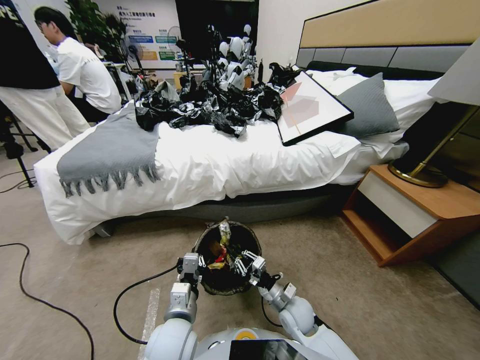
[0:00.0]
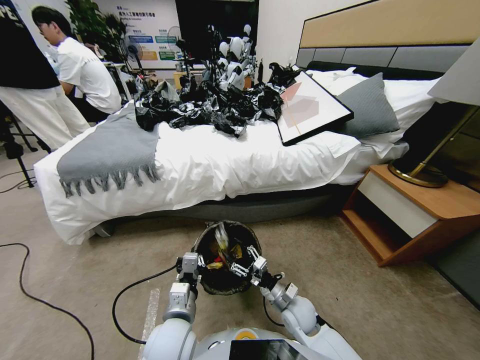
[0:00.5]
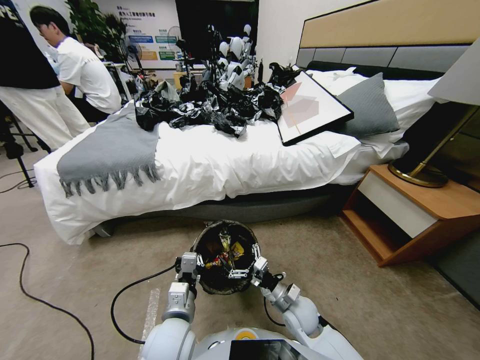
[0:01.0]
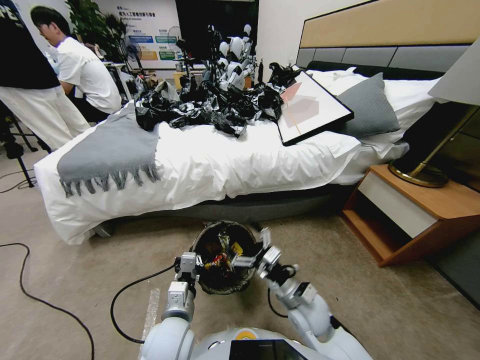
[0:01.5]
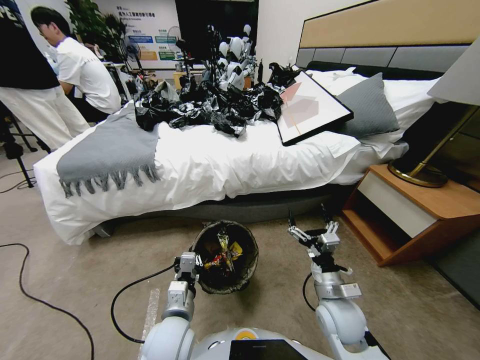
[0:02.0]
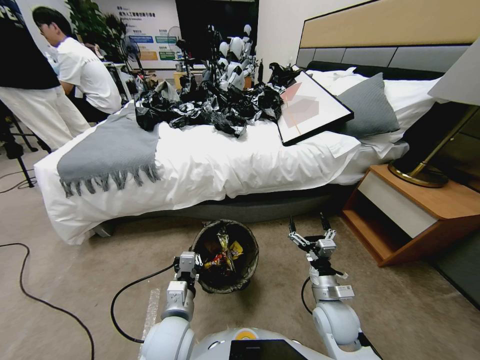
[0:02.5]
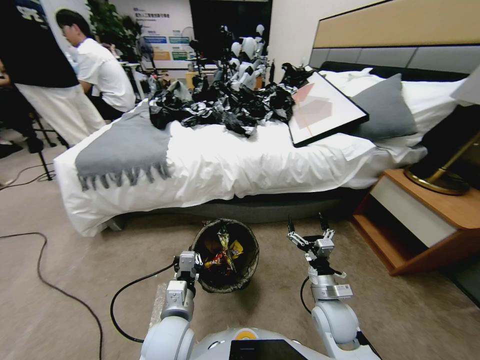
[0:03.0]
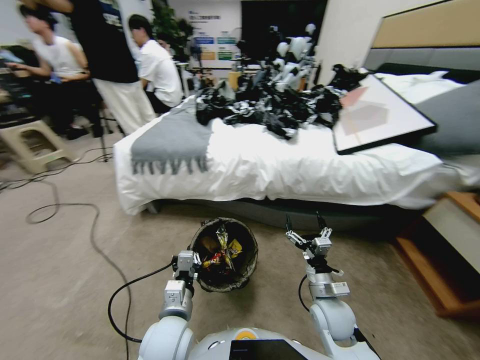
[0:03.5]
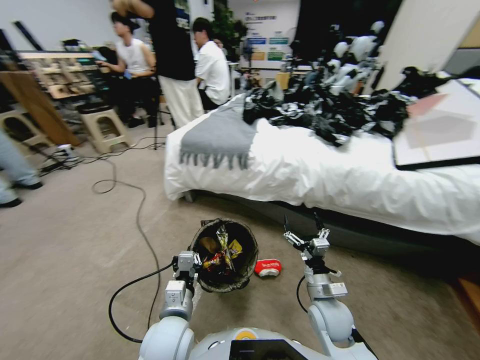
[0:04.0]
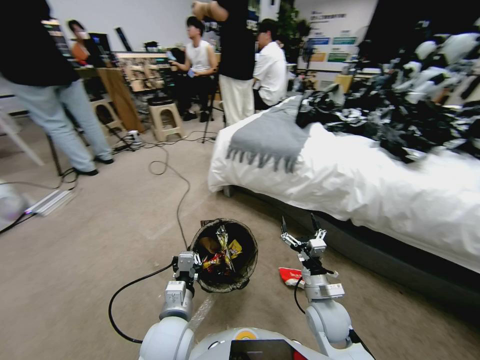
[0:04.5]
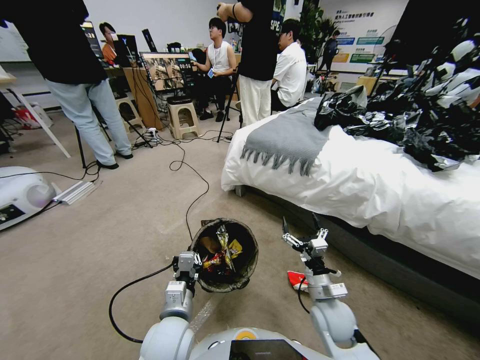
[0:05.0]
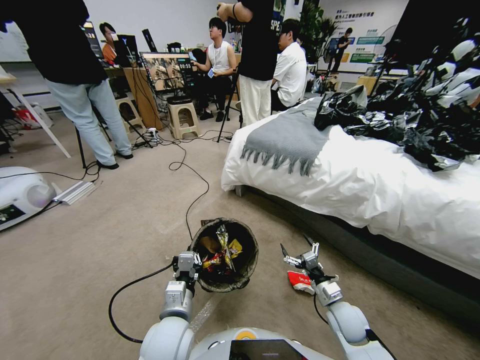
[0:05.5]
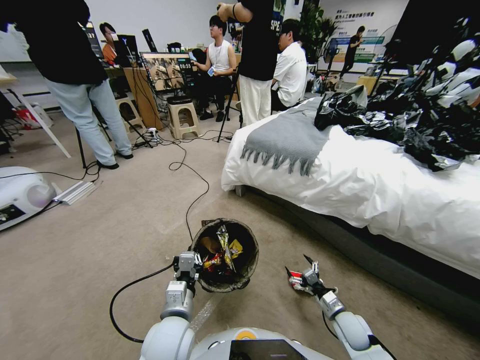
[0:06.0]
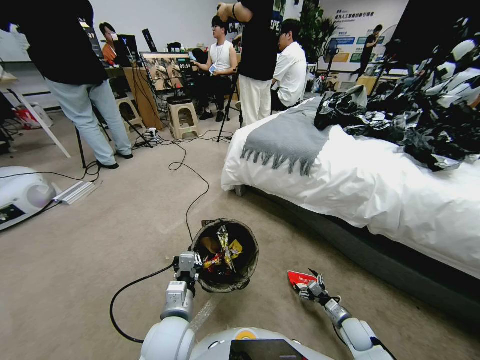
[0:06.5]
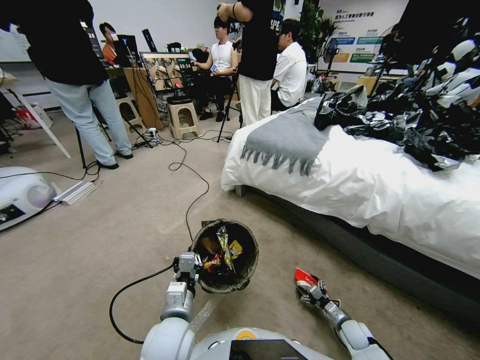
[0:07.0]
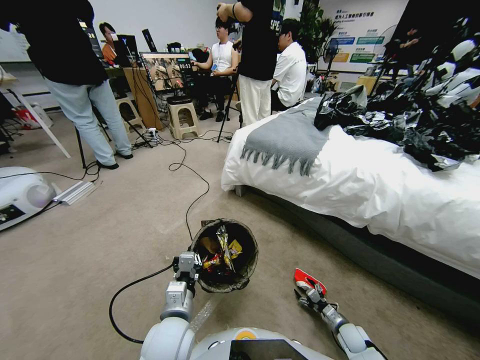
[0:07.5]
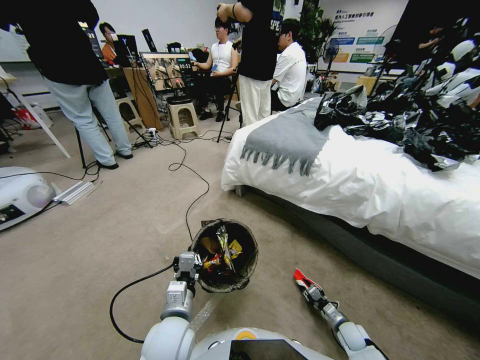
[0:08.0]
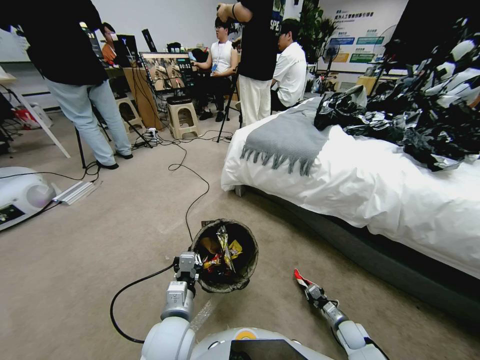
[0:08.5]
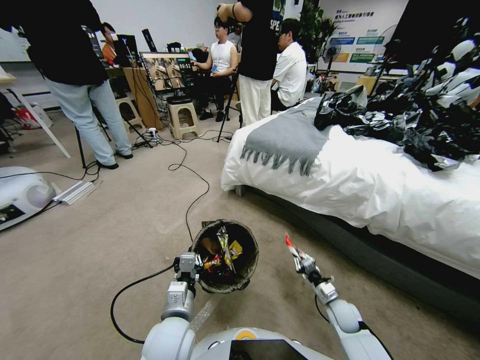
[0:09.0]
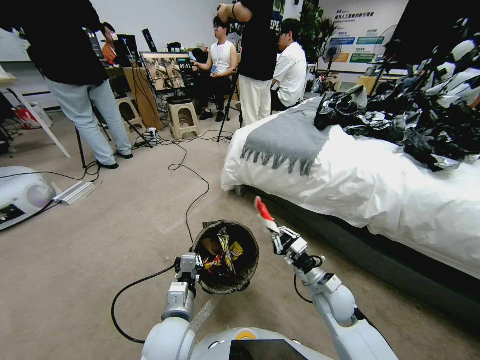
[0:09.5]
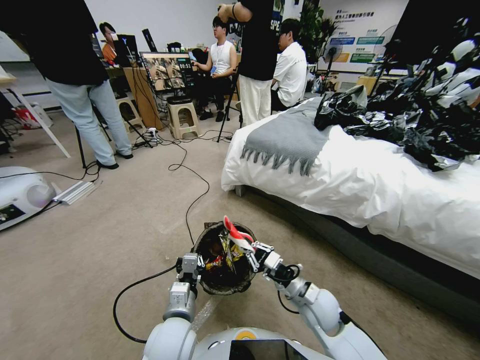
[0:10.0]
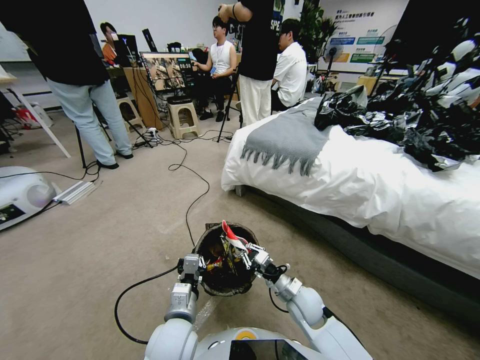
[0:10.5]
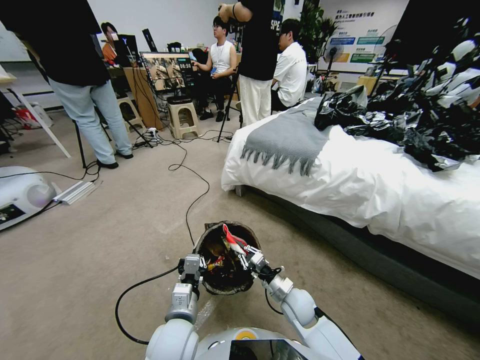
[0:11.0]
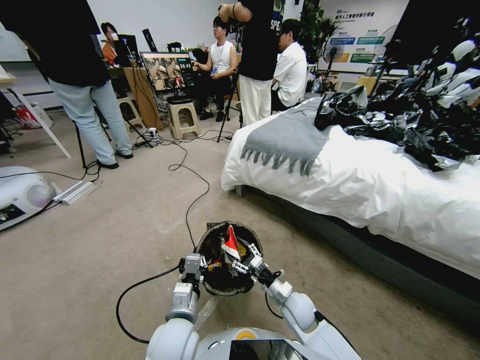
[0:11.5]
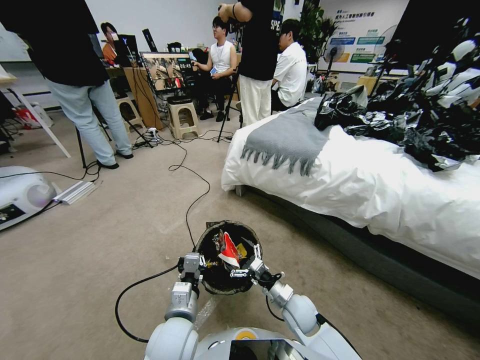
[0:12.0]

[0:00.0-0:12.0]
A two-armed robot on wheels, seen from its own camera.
Task of the whole recording: Pick up the trash bin, then pick up the garbage from the floor and place it into the trash bin.
0:00.0 to 0:02.0: The right gripper is displaced upward and to the right by some 10 cm, and opens its fingers.
0:04.0 to 0:06.0: The right gripper heads downward and to the right, covering approximately 20 cm.
0:06.0 to 0:08.0: The right gripper moves downward, about 10 cm, and closes.
0:08.0 to 0:10.0: The right gripper moves upward and to the left, about 30 cm.
0:10.0 to 0:12.0: The right gripper shifts roughly 5 cm downward, and opens up.

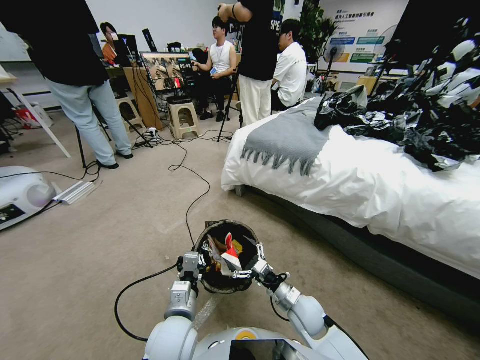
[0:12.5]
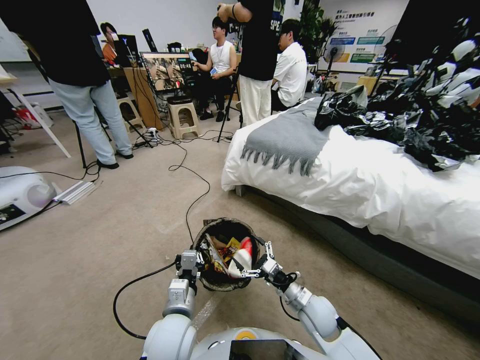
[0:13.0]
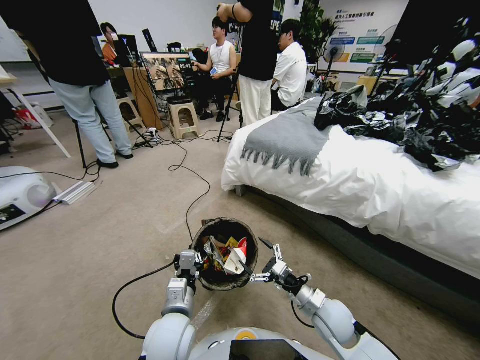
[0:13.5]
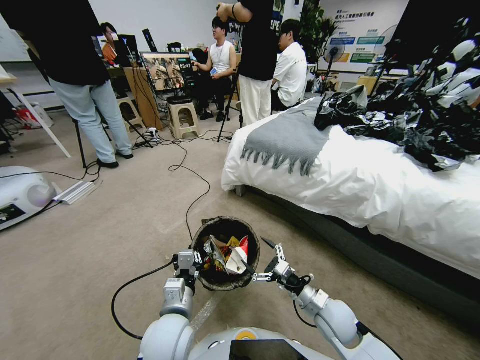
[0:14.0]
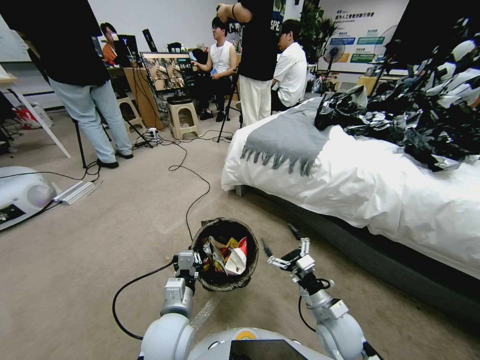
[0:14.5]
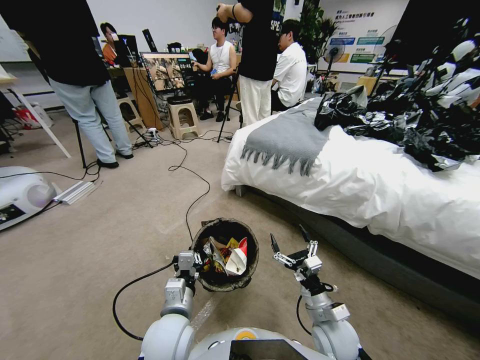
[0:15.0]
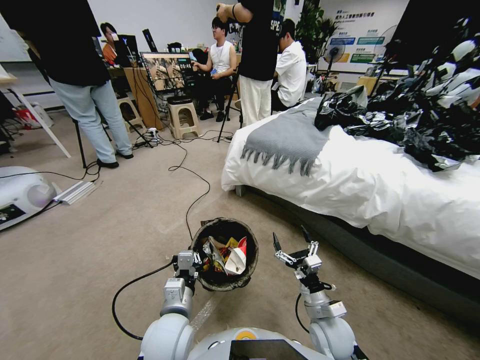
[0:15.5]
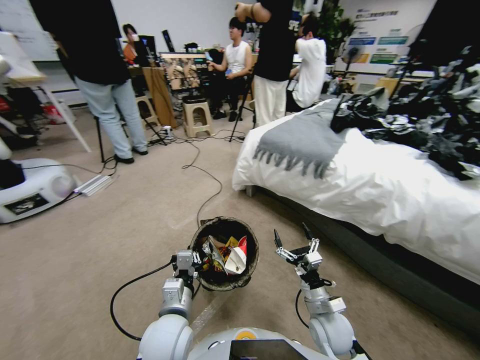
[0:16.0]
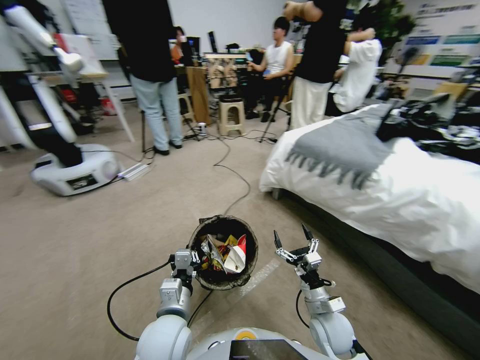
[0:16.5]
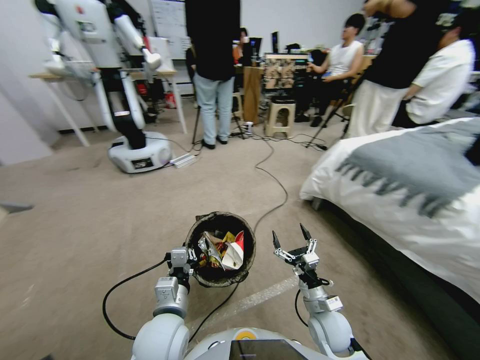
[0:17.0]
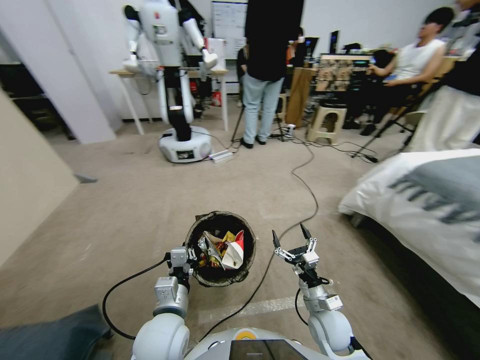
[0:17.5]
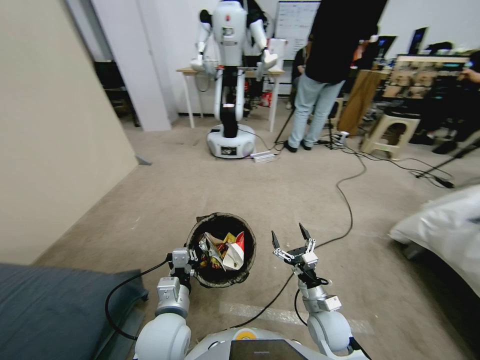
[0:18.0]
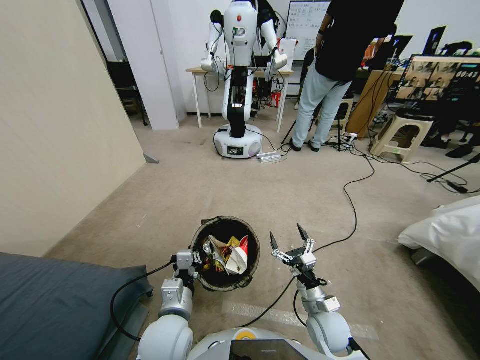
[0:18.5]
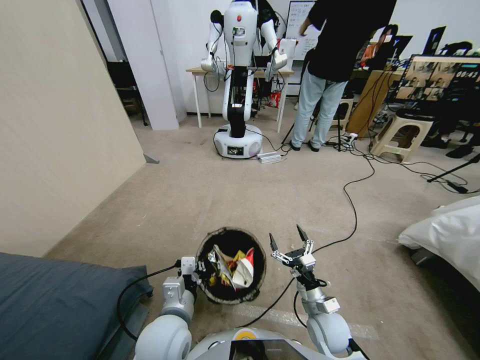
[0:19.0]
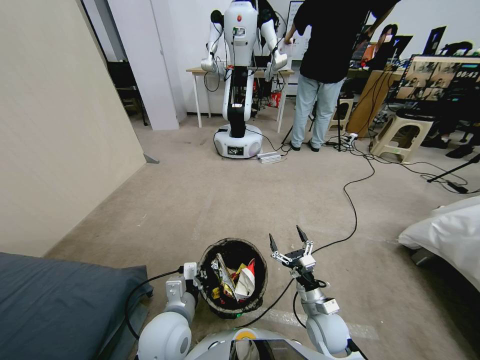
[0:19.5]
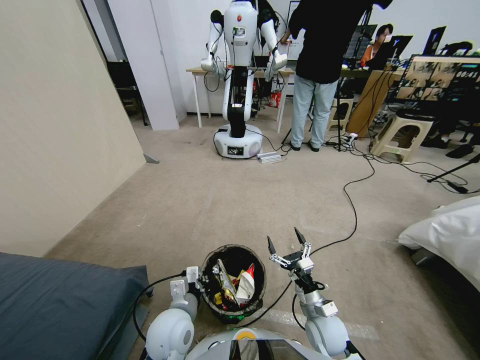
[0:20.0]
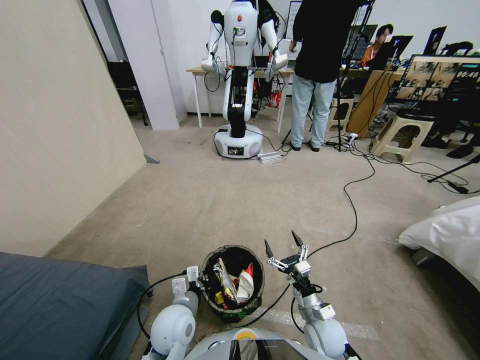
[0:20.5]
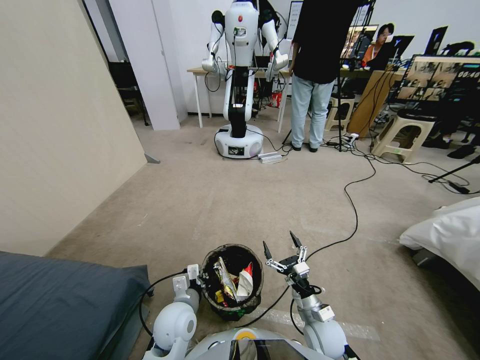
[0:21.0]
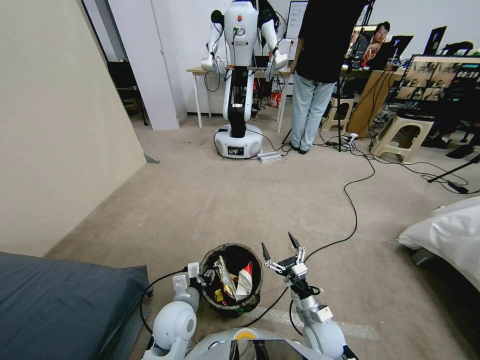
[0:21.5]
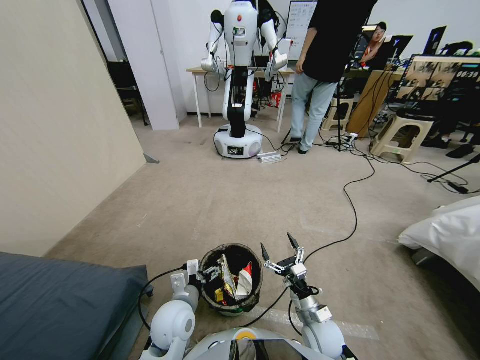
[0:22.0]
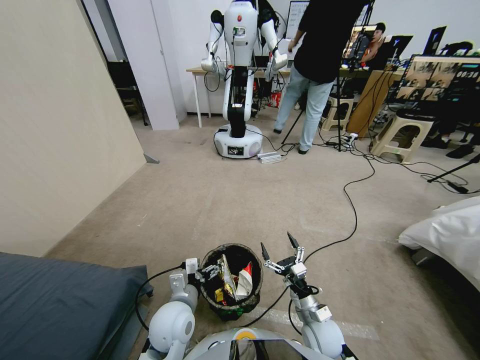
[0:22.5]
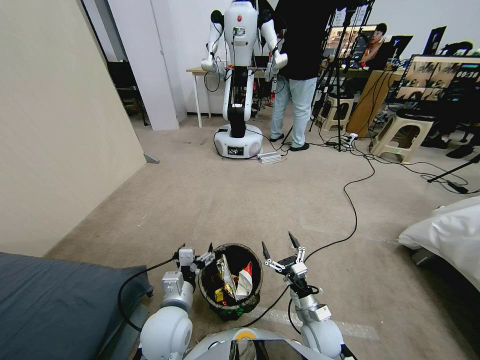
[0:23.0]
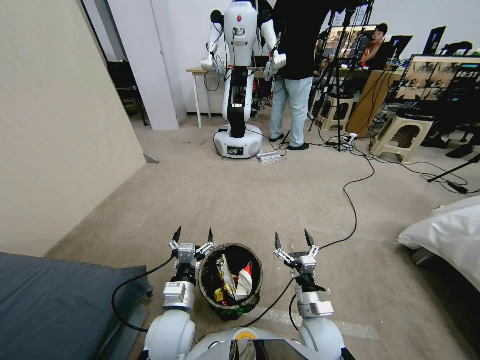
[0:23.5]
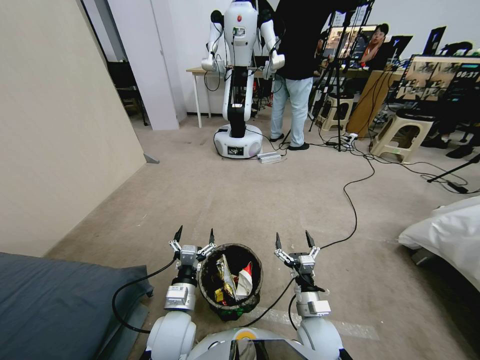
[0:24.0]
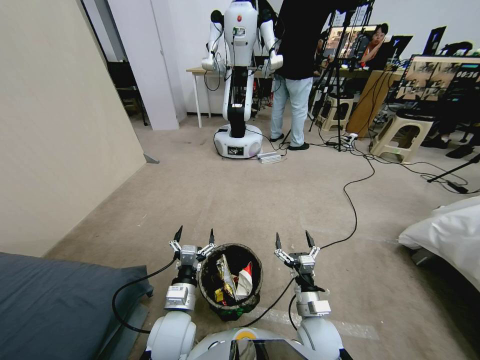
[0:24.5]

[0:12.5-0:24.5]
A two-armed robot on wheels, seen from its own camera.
Task of the whole recording: Pick up the trash bin, then pick up the garbage from the floor and place it into the trash bin.
0:12.5 to 0:14.5: The right gripper goes some 5 cm backward.
0:18.5 to 0:20.5: The left gripper shifts about 5 cm downward.
0:20.5 to 0:22.5: The left gripper opens up.

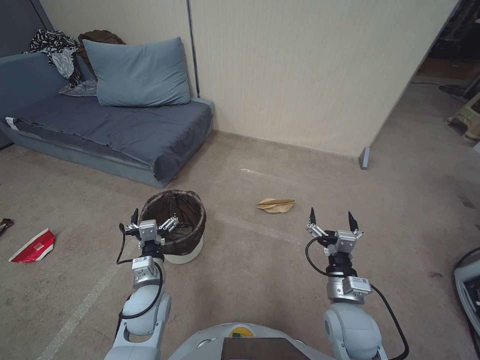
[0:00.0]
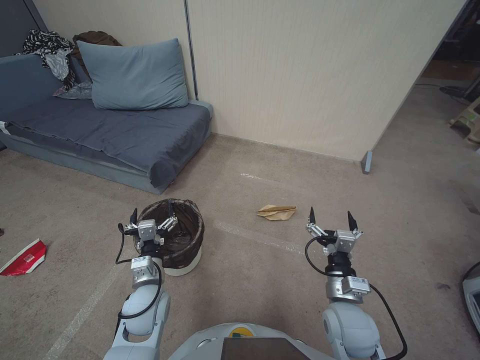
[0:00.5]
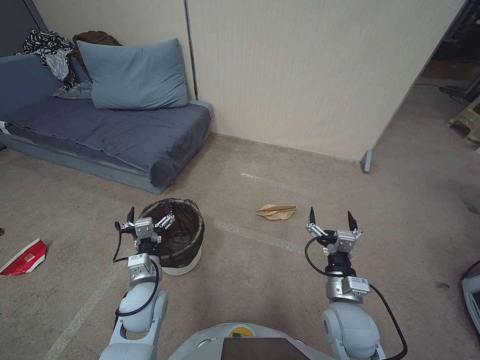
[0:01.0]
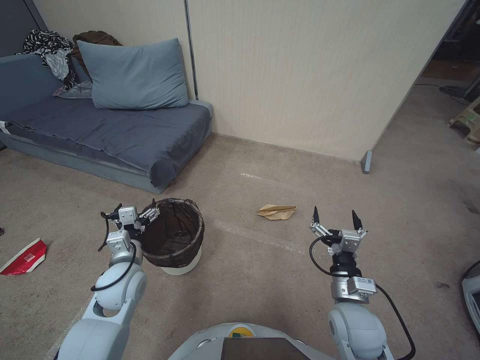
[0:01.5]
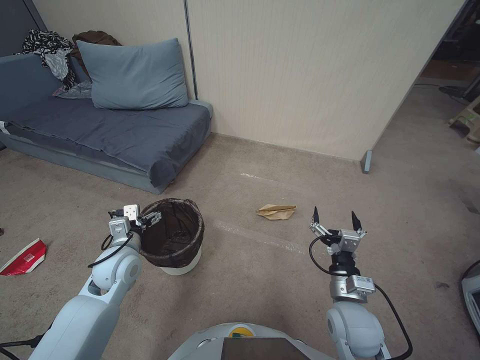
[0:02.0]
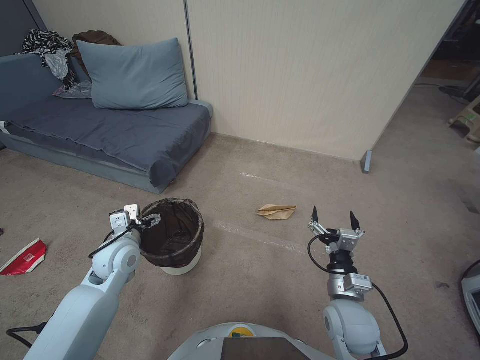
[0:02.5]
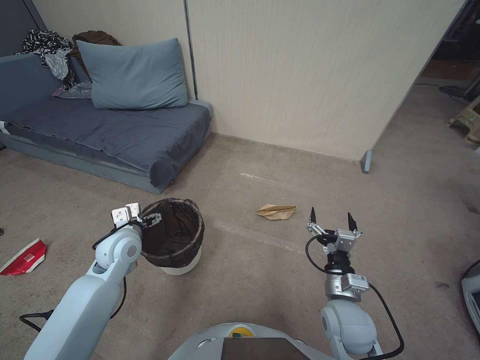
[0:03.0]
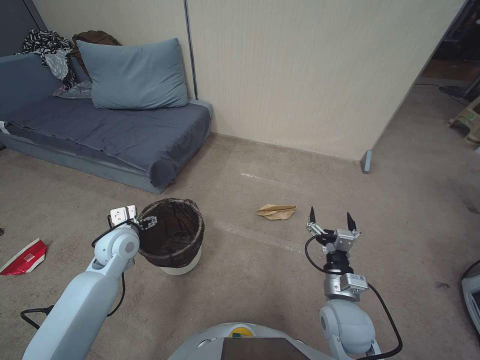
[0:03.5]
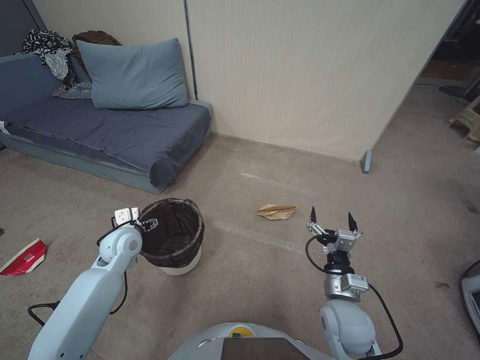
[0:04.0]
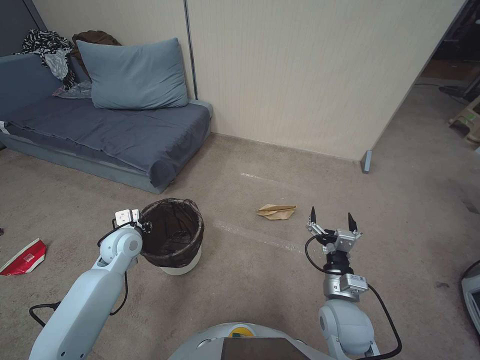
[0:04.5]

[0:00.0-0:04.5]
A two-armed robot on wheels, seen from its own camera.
Task of the whole recording: Pick up the trash bin, then pick up the garbage from the floor and place it into the trash bin.
0:00.0 to 0:02.0: The left gripper is displaced to the left, forward and upward by roughly 10 cm.
0:02.0 to 0:04.5: The left gripper heads forward, covering roughly 5 cm, and closes its fingers.
